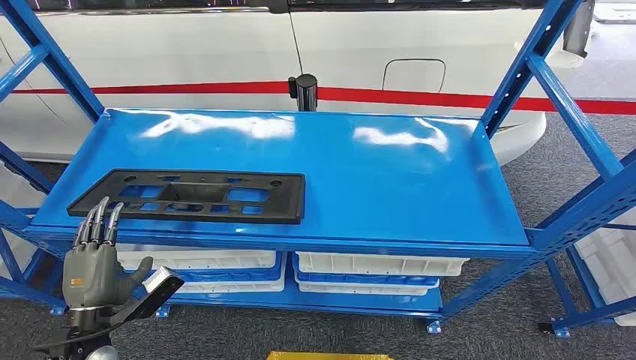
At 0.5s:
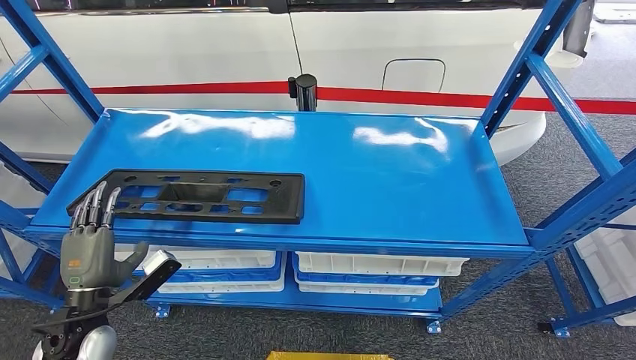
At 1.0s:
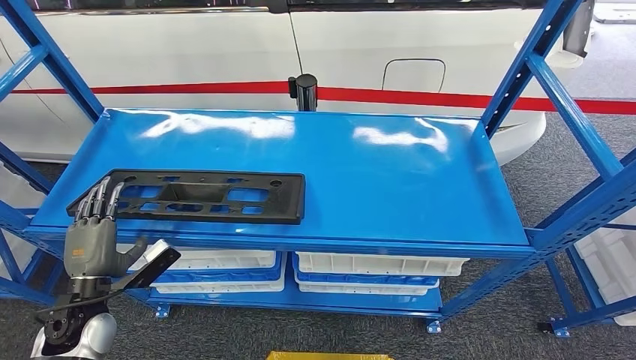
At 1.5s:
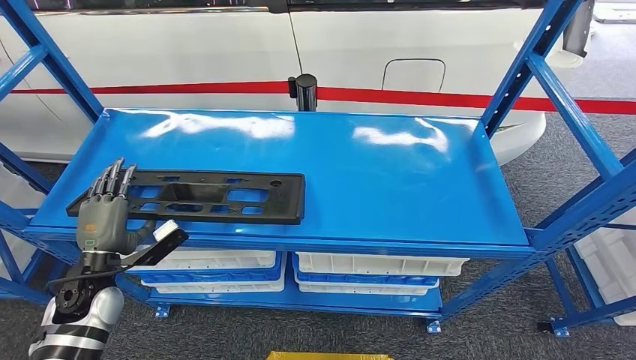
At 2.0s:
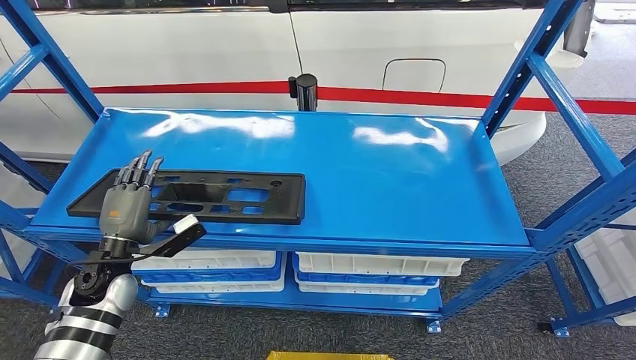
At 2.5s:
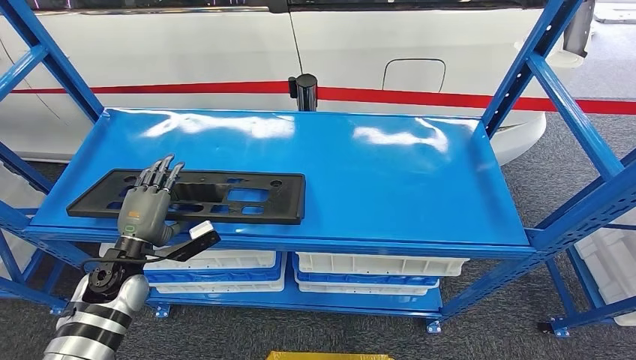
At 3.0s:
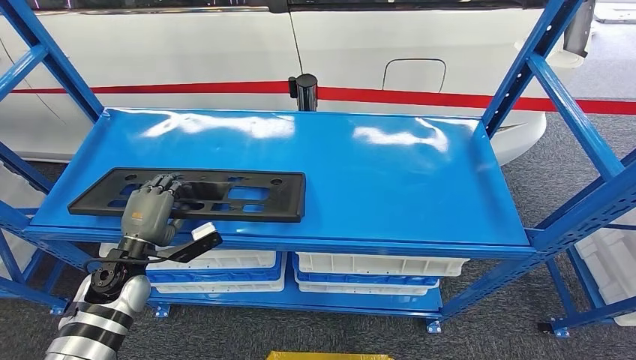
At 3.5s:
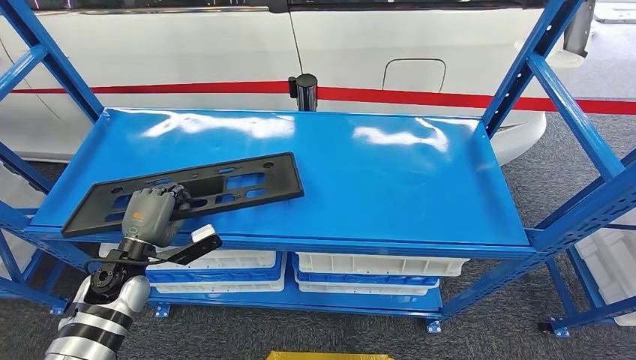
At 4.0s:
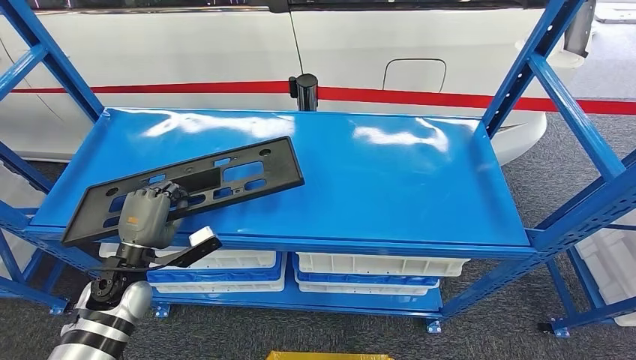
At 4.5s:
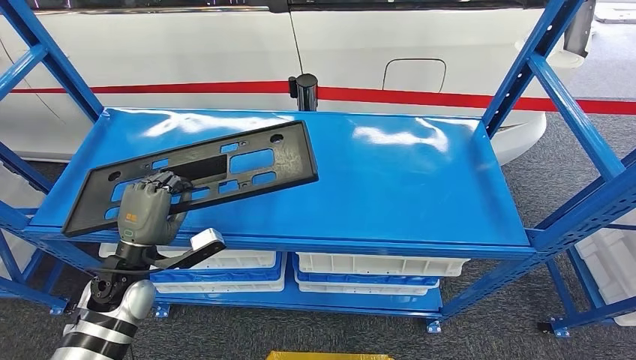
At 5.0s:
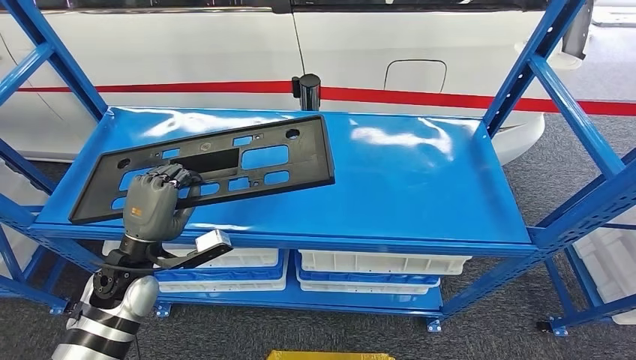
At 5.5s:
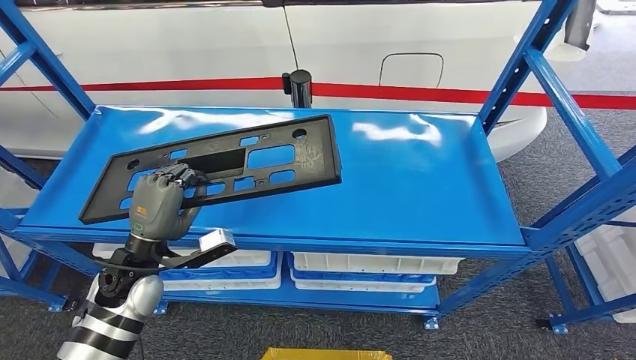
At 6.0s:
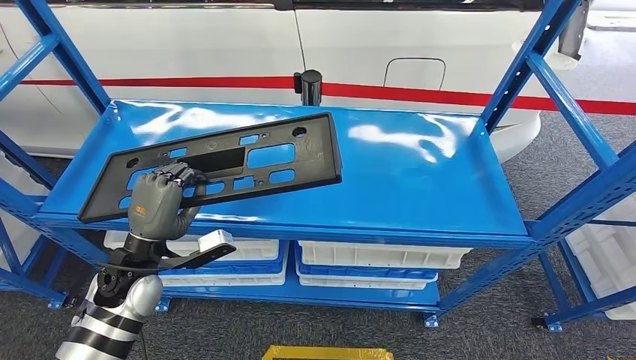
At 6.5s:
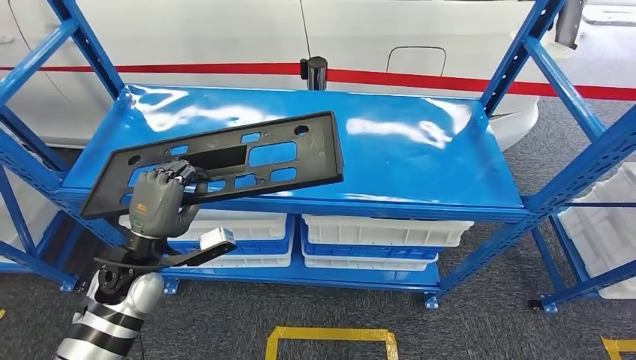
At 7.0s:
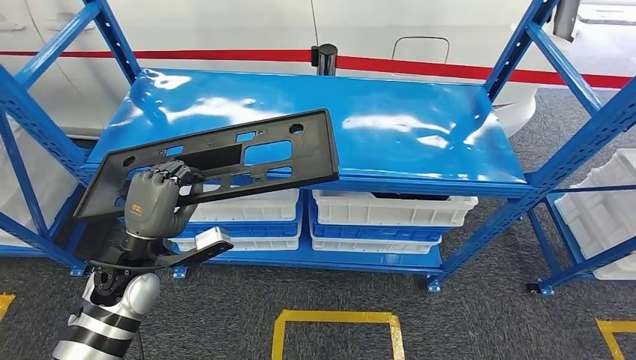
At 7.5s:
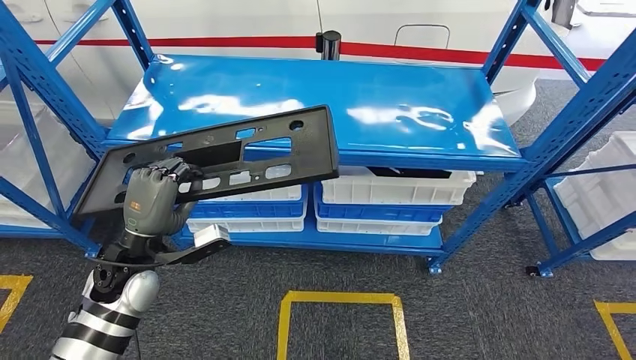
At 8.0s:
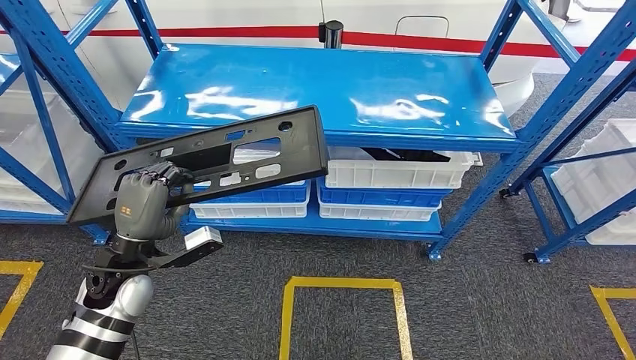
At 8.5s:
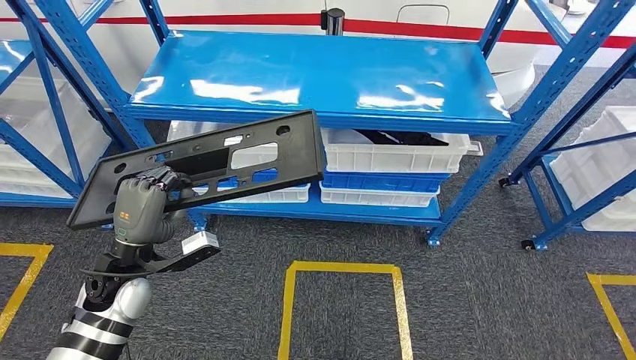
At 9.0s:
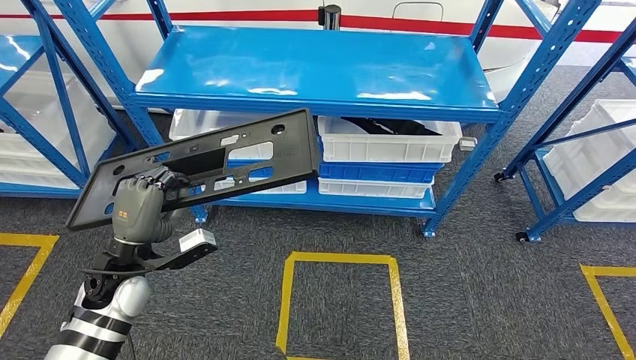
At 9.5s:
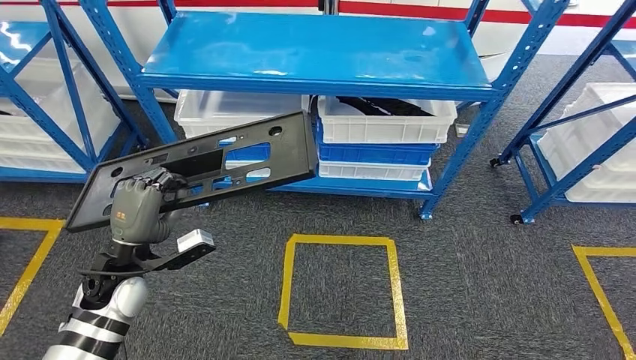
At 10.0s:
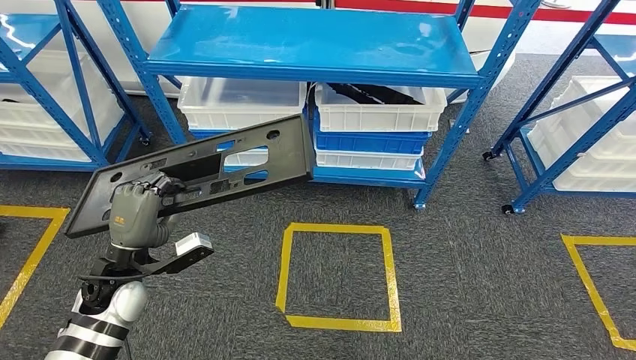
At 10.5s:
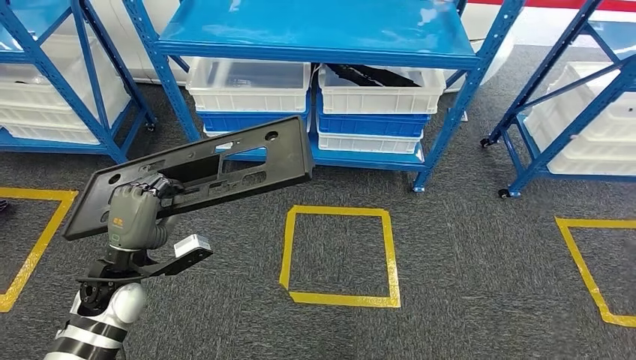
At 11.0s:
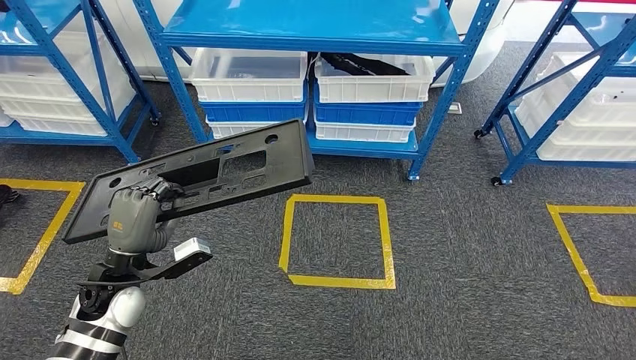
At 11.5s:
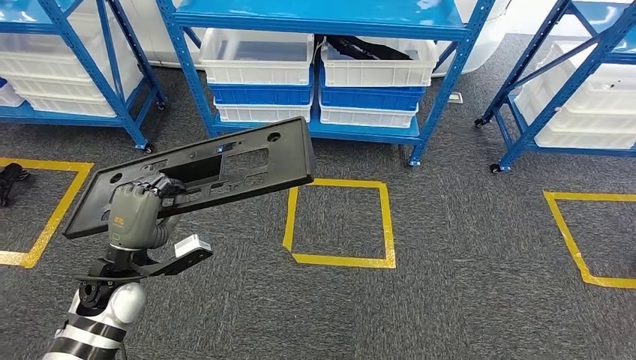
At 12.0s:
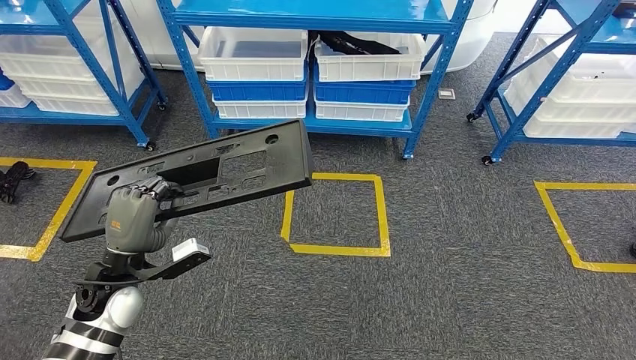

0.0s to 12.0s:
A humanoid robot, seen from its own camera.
Step, 0.0s to 5.0s: Pick up the large material from the shelf.
2.0s to 4.0s: The hands make only small movements.

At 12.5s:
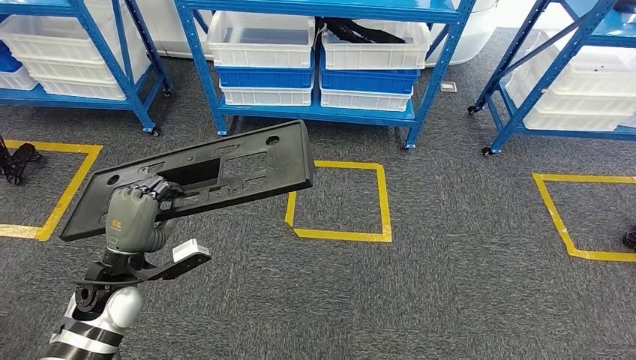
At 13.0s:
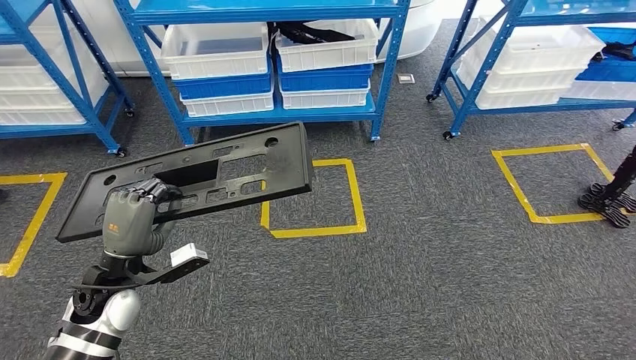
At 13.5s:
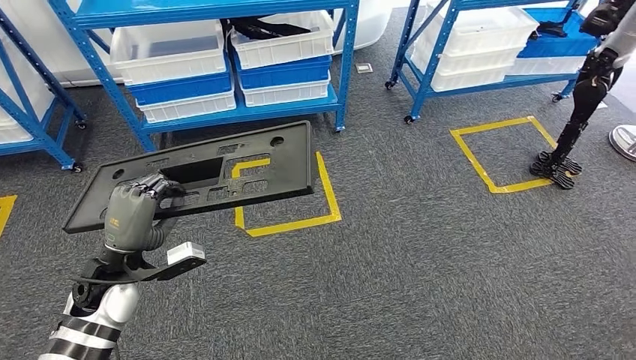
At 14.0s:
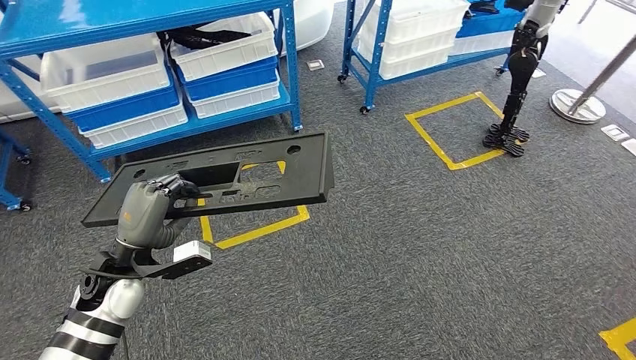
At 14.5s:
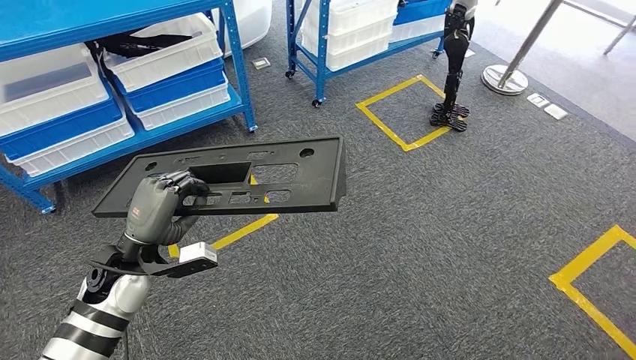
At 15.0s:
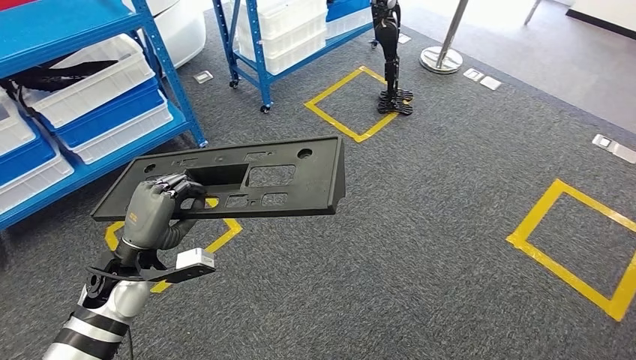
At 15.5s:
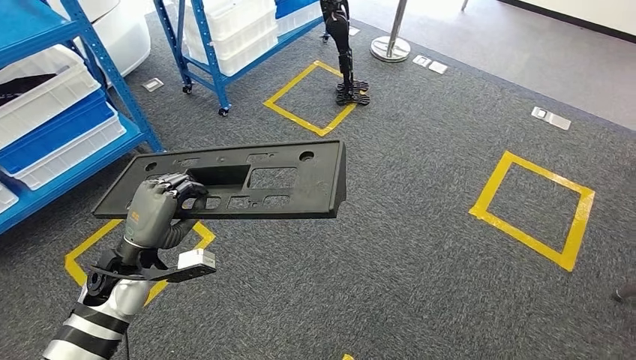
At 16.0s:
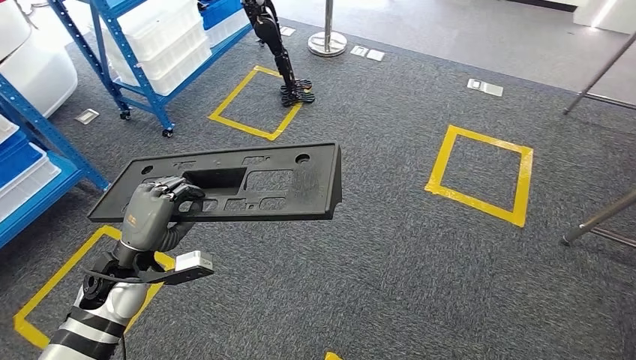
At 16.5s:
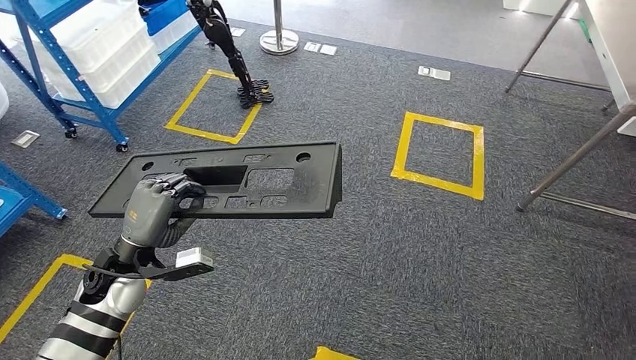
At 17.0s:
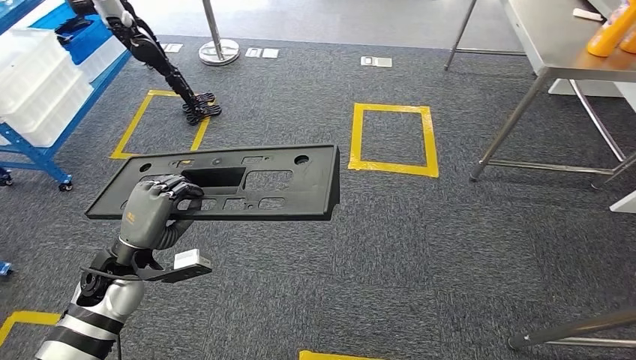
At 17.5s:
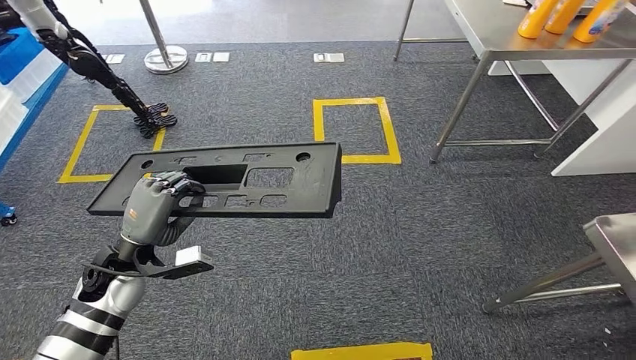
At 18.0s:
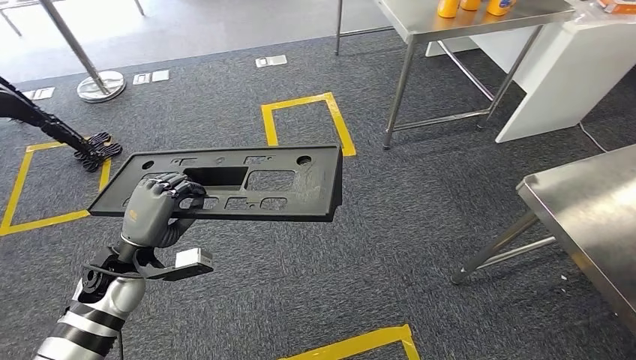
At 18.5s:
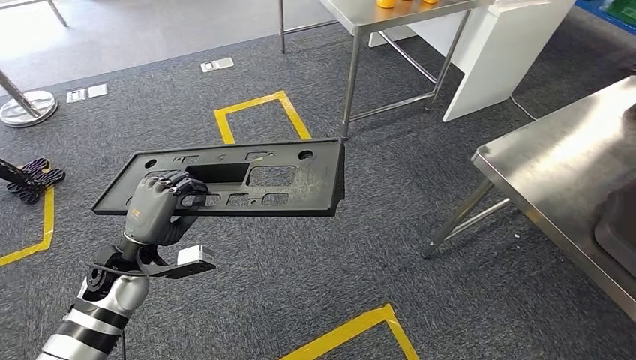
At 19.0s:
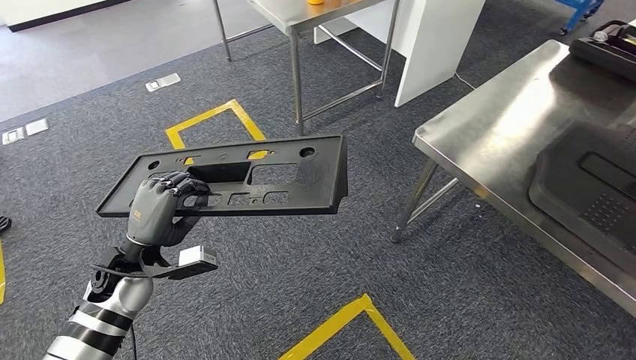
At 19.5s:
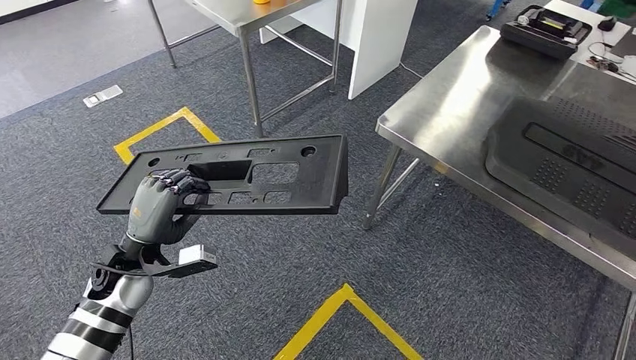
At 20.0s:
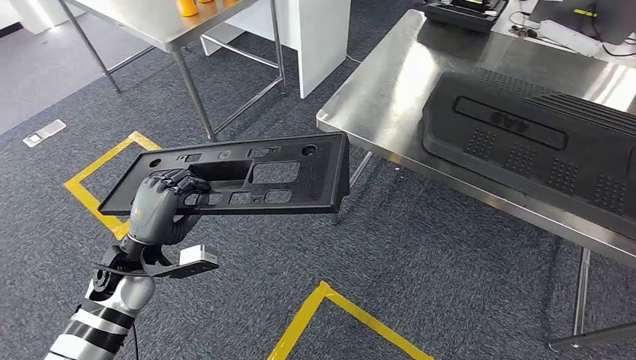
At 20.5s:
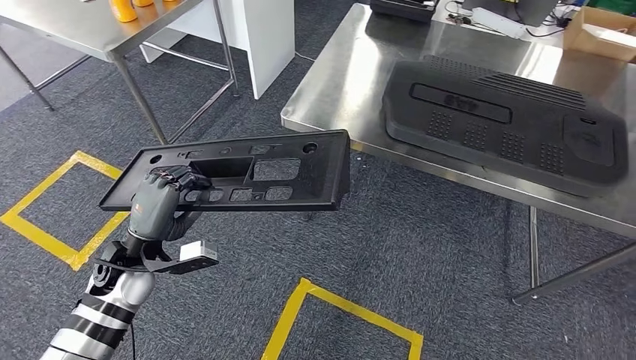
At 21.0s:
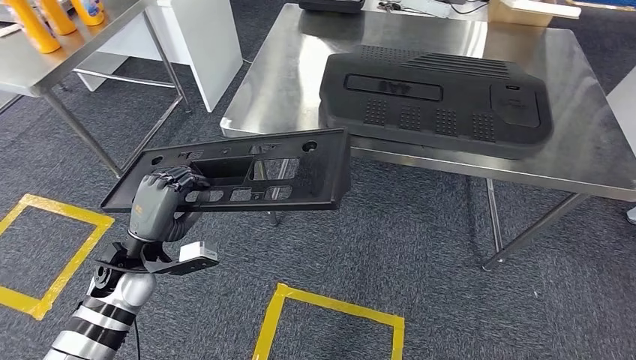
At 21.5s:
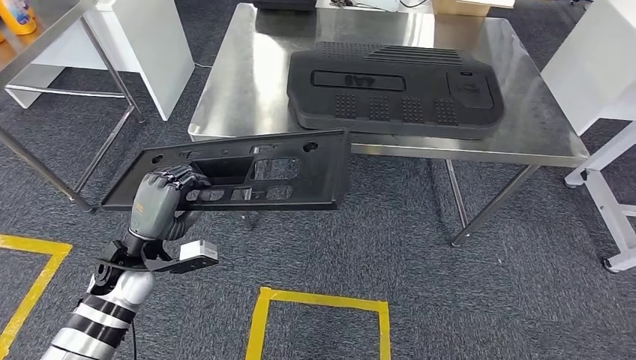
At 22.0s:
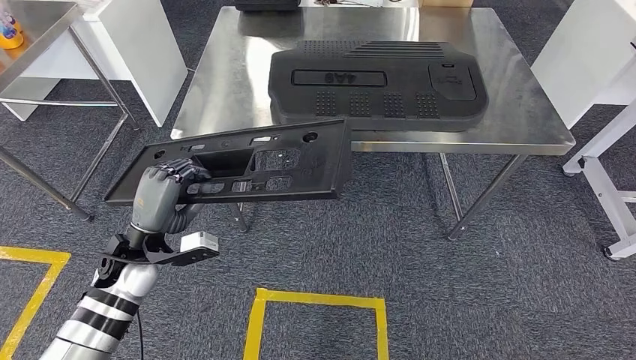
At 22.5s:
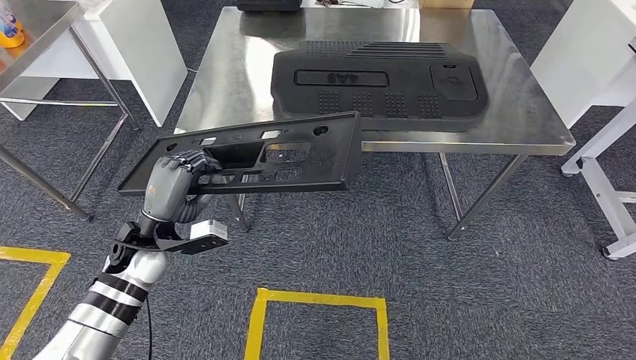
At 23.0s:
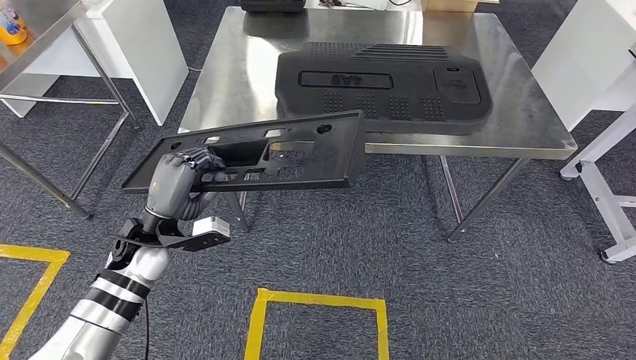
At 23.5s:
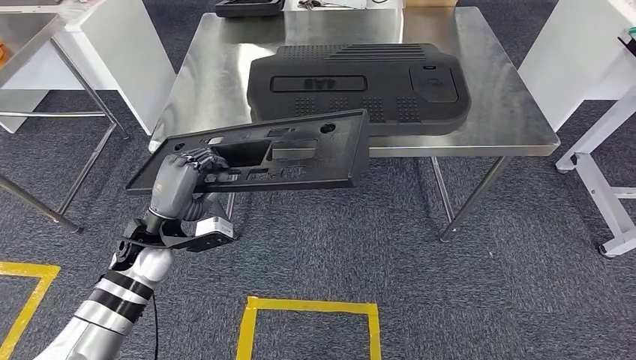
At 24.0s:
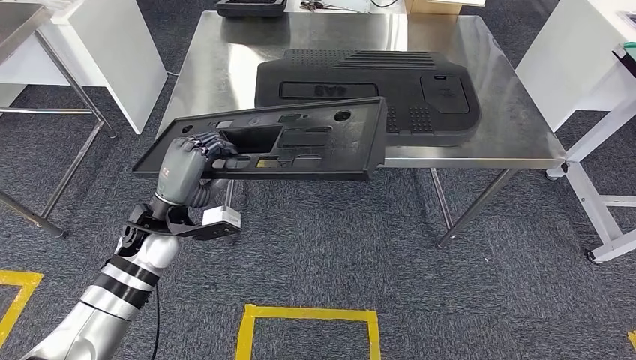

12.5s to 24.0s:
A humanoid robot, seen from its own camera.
Step, 12.5s to 22.5s: Move the large material to the front of the workbench.
